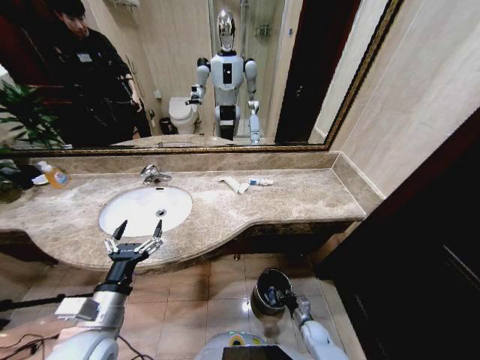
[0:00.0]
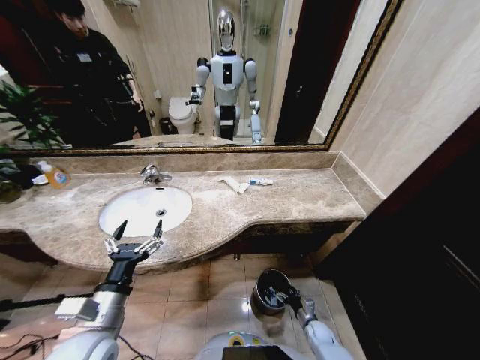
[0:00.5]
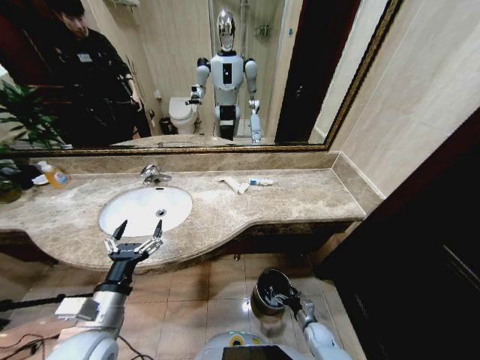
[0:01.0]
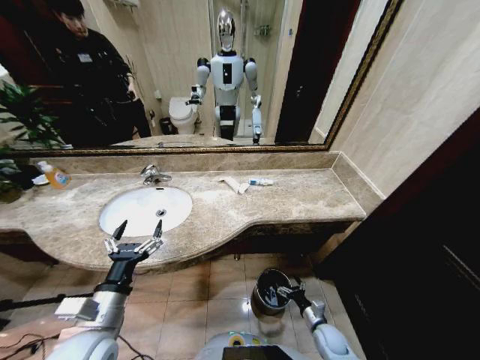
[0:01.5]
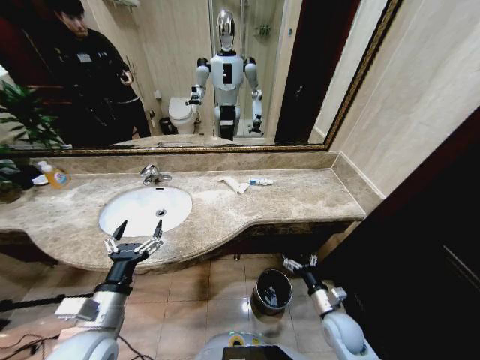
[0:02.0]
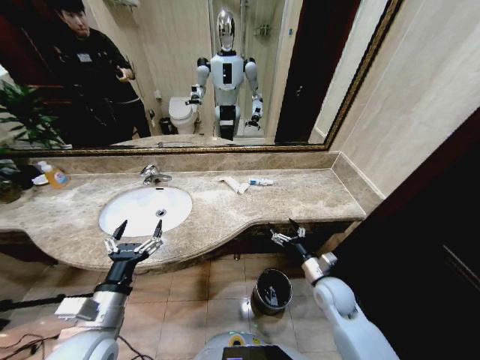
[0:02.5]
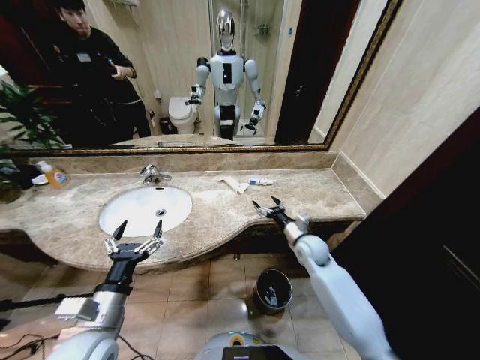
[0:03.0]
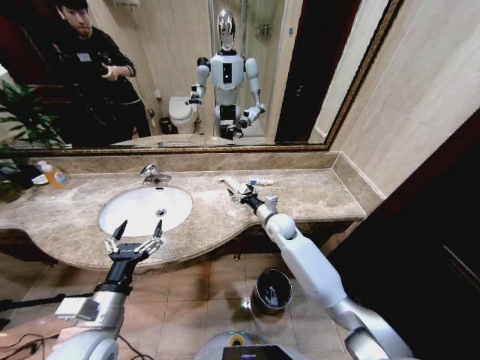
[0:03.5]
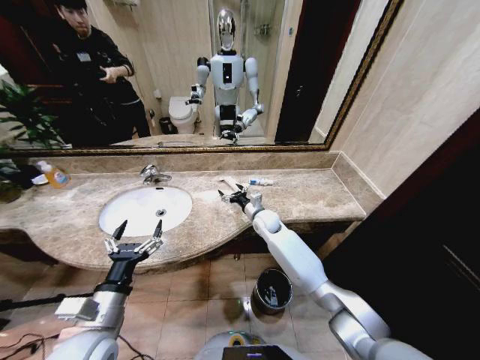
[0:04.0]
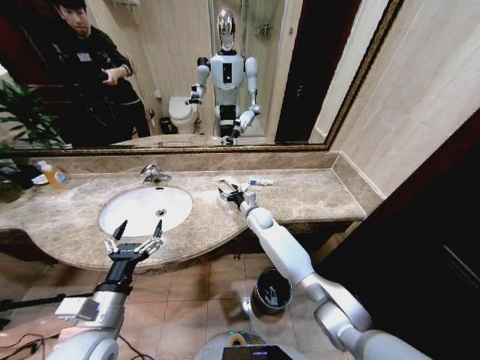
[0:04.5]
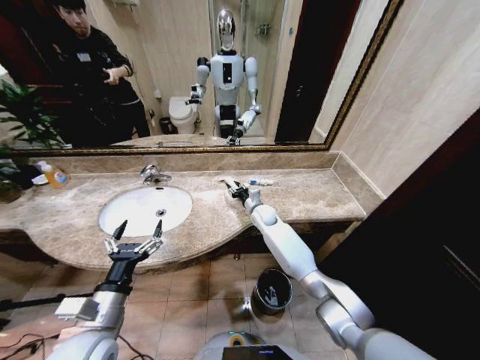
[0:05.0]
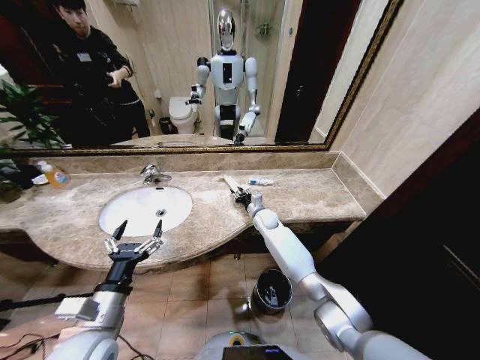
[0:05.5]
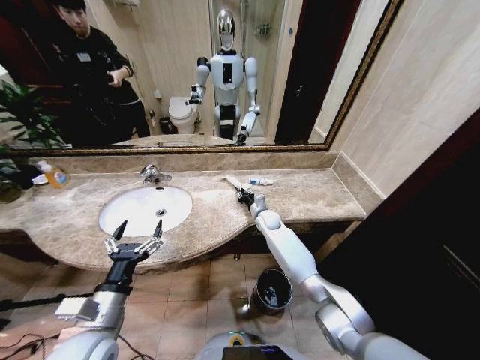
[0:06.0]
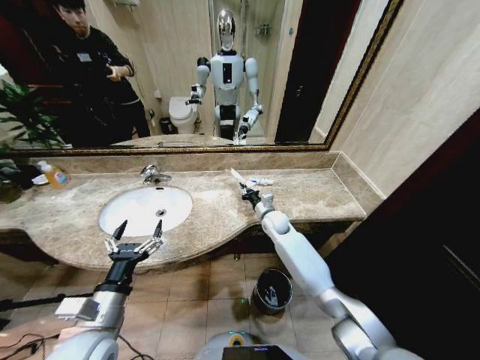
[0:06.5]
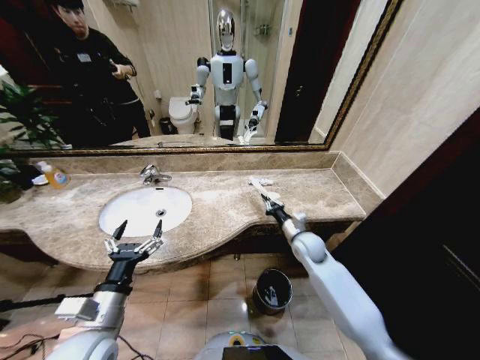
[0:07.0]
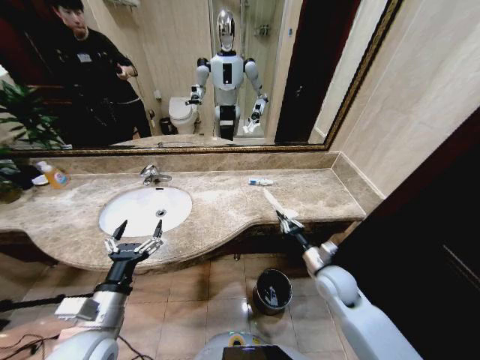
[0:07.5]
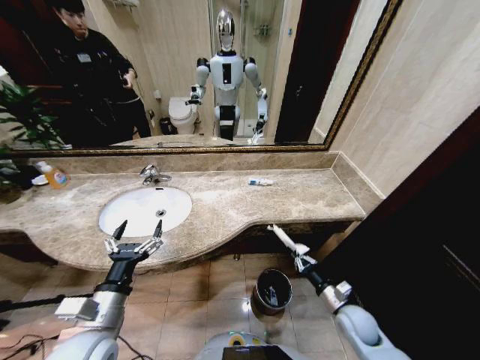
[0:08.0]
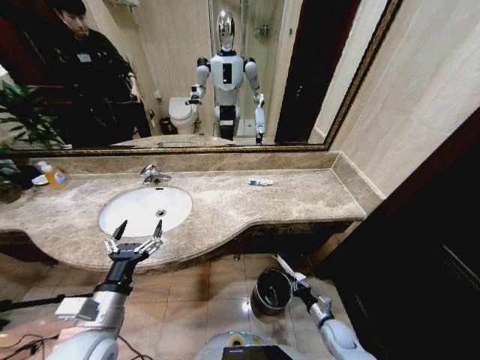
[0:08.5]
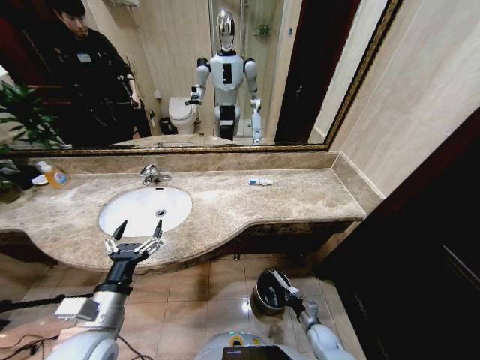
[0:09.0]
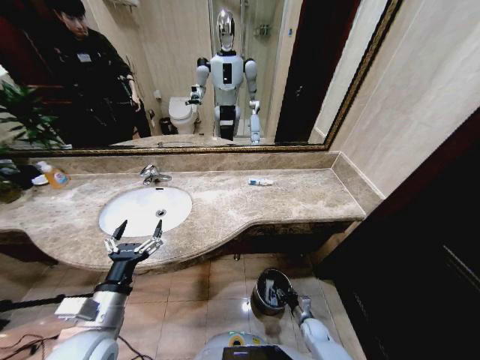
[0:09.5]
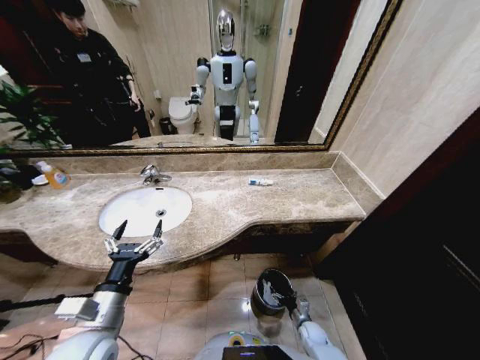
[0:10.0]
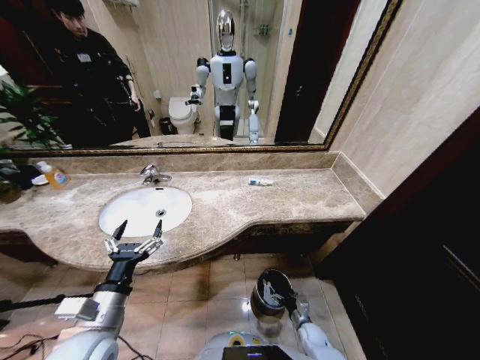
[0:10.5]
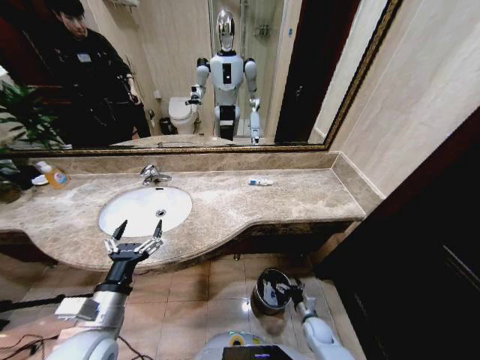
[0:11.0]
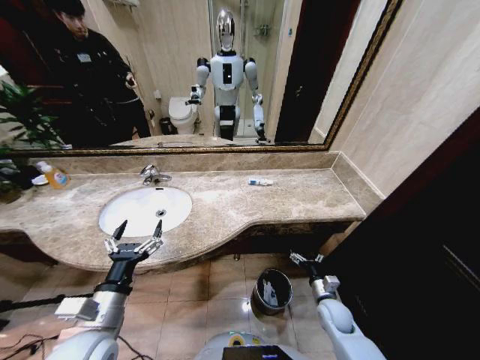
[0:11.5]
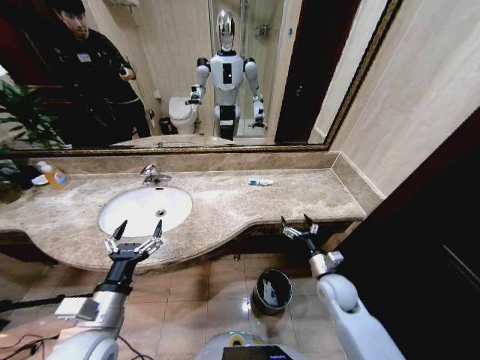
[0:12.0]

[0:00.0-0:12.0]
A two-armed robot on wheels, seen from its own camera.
Task of the whole recording: Pick up the trash from the sink and place it in the trash bin.
0:00.0 to 0:02.0: The right gripper travels upward by approximately 20 cm, and opens up.
0:02.0 to 0:04.0: The right gripper goes some 35 cm forward and to the left.
0:04.0 to 0:06.0: The right gripper ends up about 5 cm from where it was, and closes its fingers.
0:06.0 to 0:08.0: The right gripper moves backward and to the right, roughly 40 cm.
0:08.0 to 0:10.0: The right gripper moves downward, about 20 cm, and opens.
0:10.0 to 0:12.0: The right gripper shifts approximately 30 cm upward.

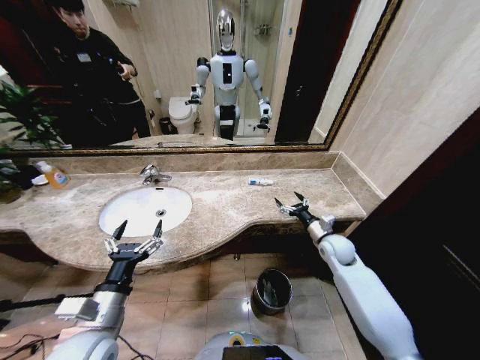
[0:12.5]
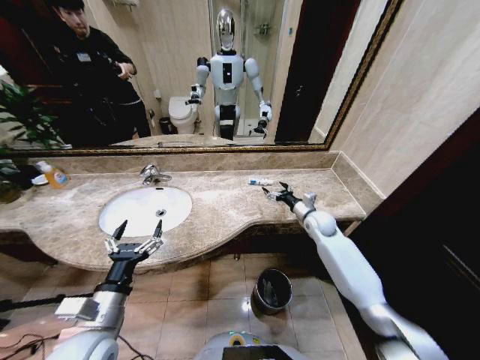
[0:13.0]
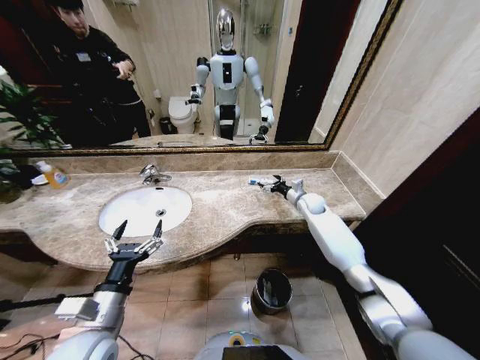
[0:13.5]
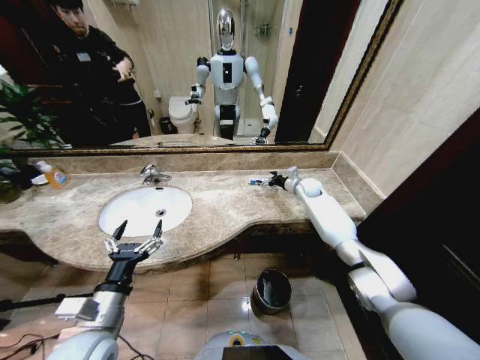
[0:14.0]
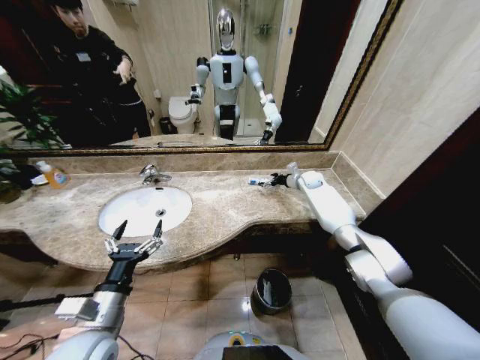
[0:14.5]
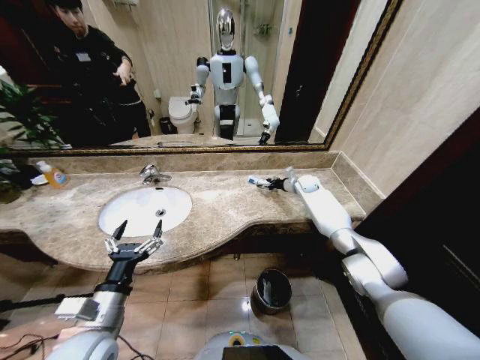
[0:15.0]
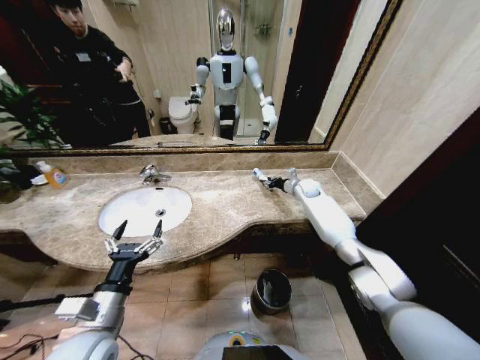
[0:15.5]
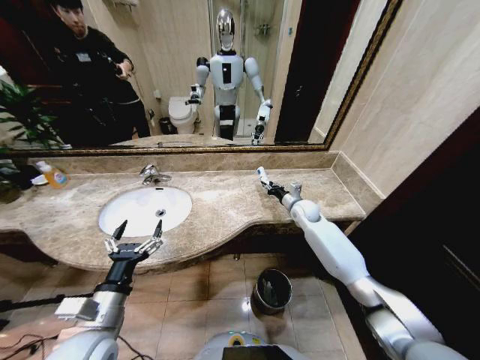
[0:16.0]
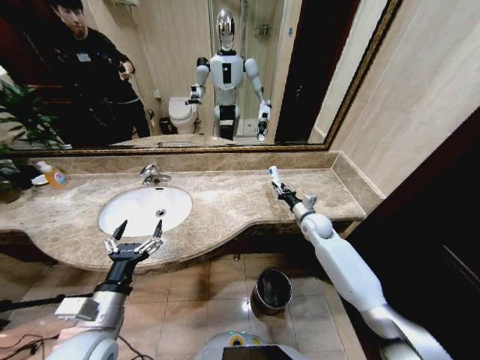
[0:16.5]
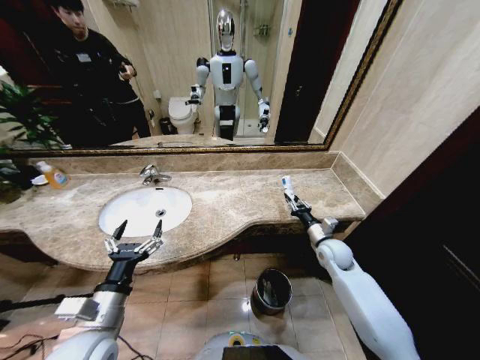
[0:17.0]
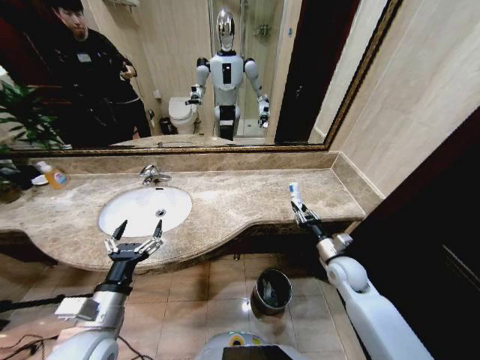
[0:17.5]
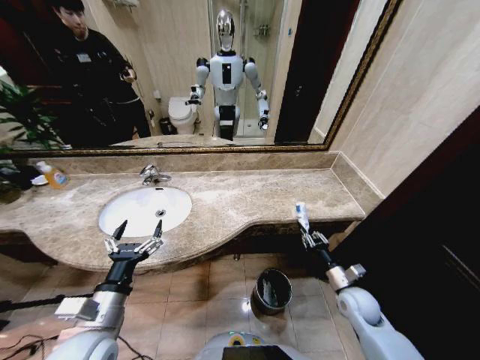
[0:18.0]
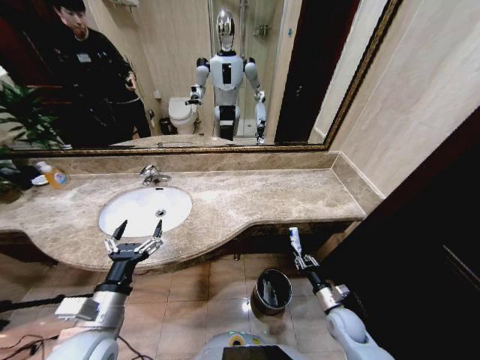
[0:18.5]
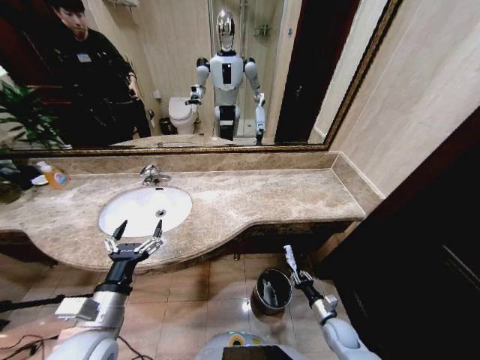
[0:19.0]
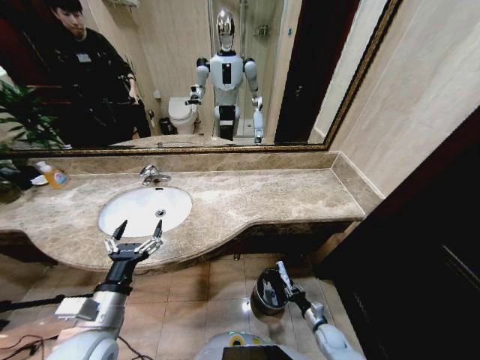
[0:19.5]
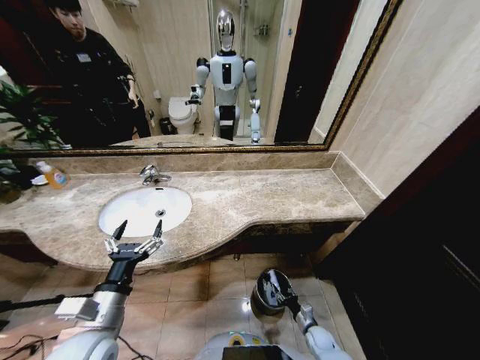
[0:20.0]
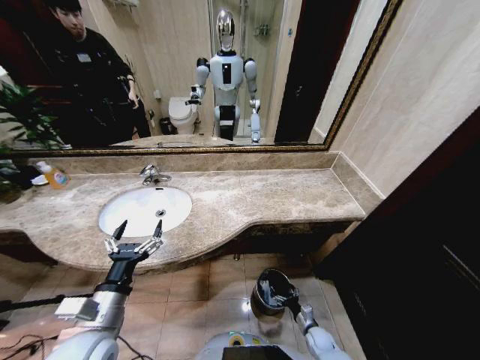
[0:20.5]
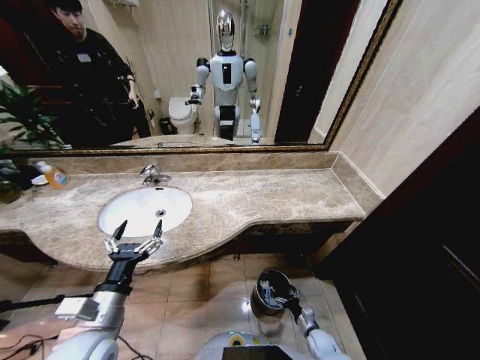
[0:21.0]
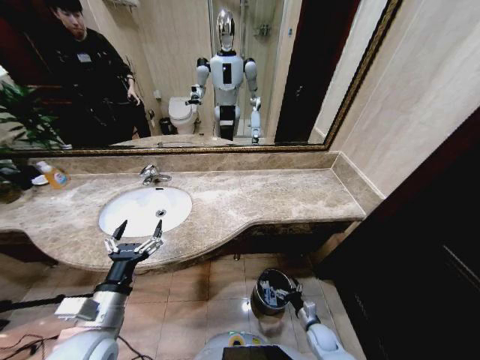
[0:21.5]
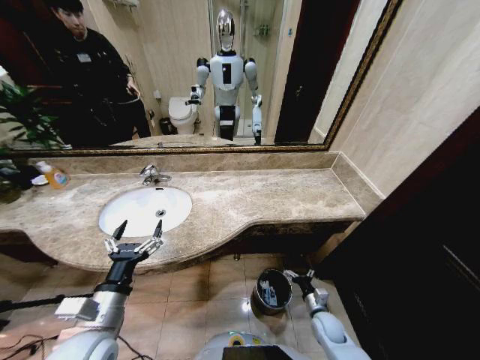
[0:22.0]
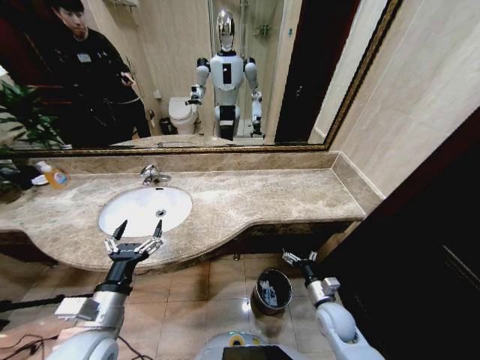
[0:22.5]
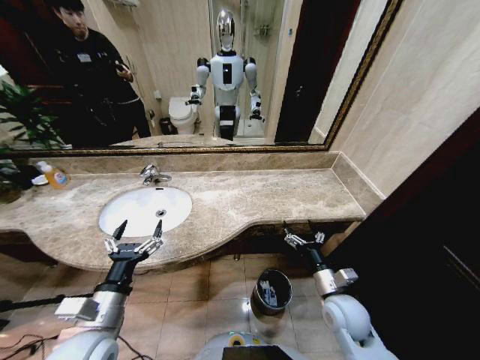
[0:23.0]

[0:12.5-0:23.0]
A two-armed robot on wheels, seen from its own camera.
Task of the whole recording: Pick up the trash from the sink and place it in the trash bin.
0:12.5 to 0:14.5: The right gripper travels forward by roughly 25 cm.
0:14.5 to 0:16.5: The right gripper is displaced backward by roughly 20 cm, and closes.
0:16.5 to 0:19.0: The right gripper shifts some 35 cm backward and downward.
0:19.0 to 0:21.0: The right gripper is displaced downward by approximately 10 cm, and opens its fingers.
0:21.0 to 0:23.0: The right gripper travels upward by about 30 cm.

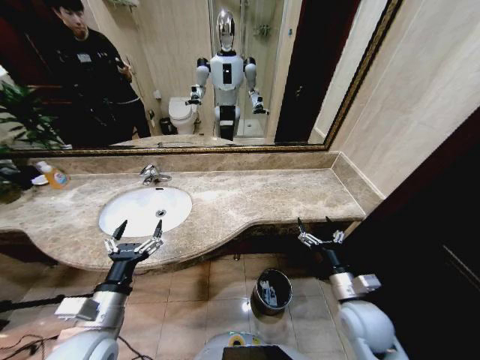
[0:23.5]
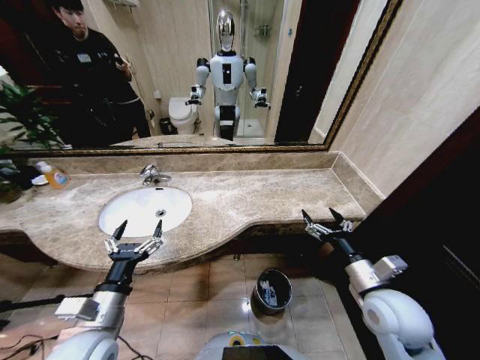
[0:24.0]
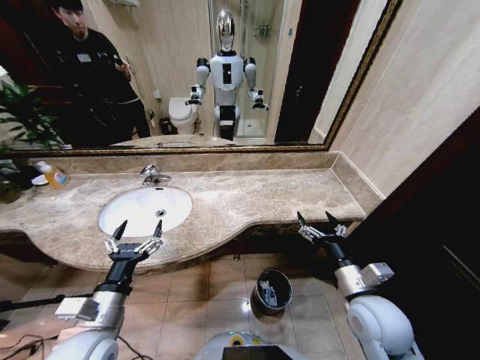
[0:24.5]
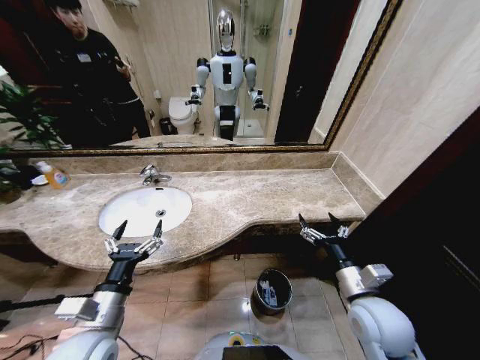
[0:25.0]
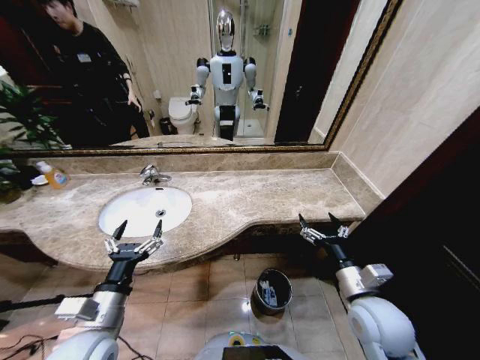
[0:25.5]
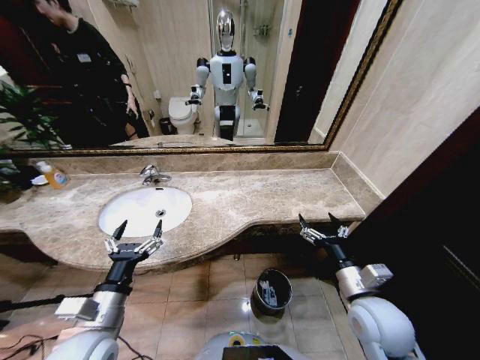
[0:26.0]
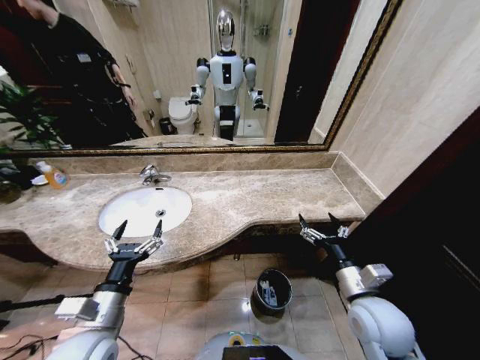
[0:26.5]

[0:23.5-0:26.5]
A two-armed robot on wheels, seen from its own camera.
Task of the whole recording: Pick up the trash from the sink and place it in the trash bin.
0:23.5 to 0:25.0: The right gripper travels upward by about 5 cm.
0:25.0 to 0:26.5: The two grippers keep their place.
